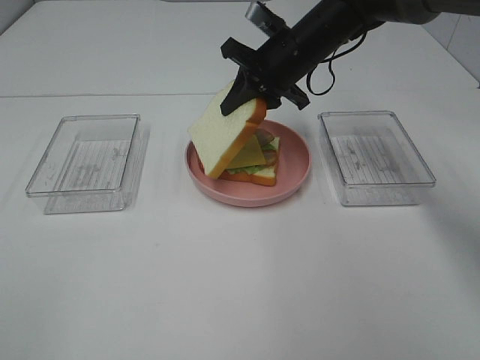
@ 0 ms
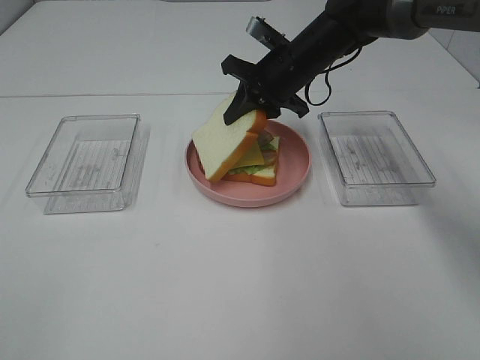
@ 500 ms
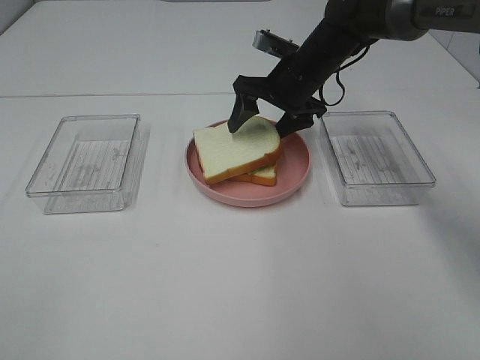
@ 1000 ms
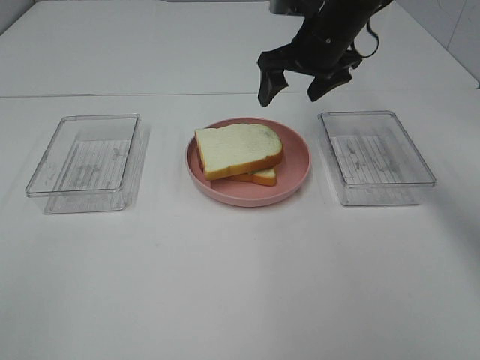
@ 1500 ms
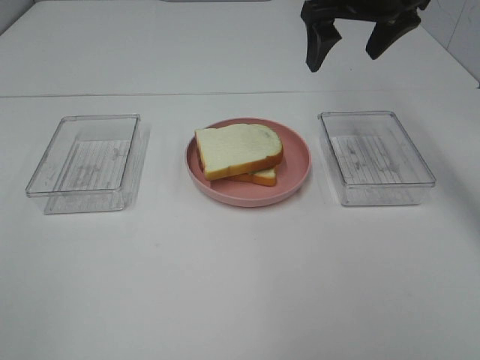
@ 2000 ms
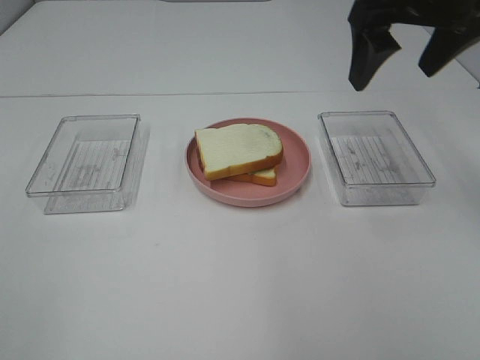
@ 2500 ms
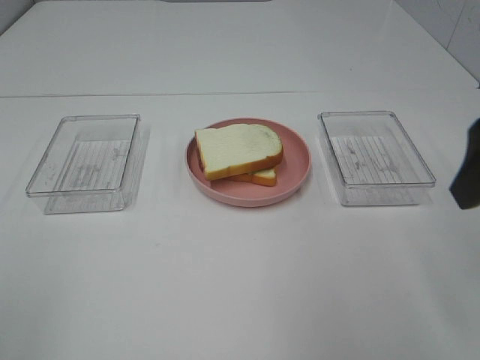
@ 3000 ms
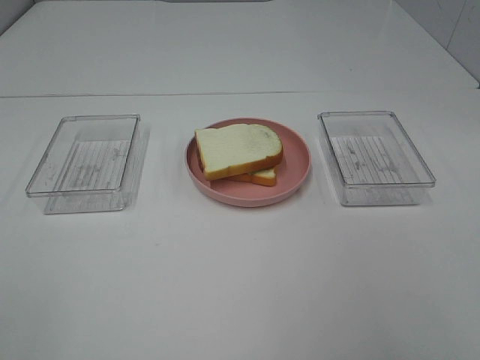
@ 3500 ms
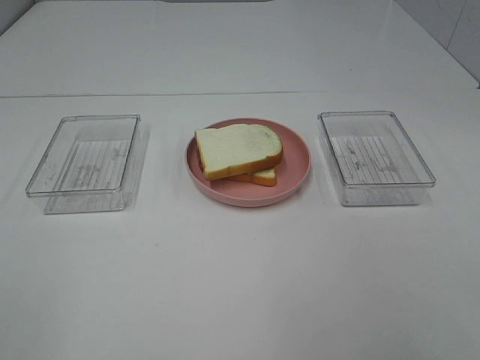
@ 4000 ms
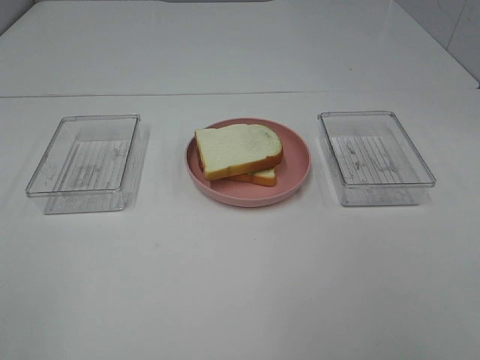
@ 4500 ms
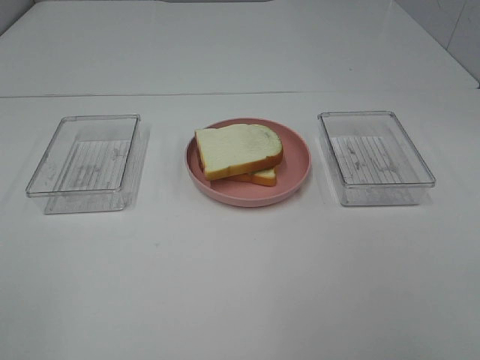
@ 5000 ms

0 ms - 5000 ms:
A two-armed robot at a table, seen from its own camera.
Task of the whole recording: Make sandwiches.
0 ms - 2500 ms: The right gripper is displaced upward, backward and to the right by some 20 cm, and opens.
2500 ms - 5000 ms: The right gripper shifts about 35 cm backward.

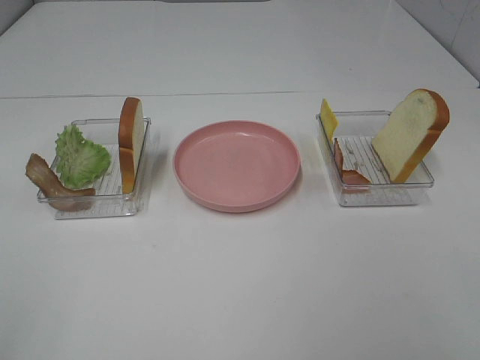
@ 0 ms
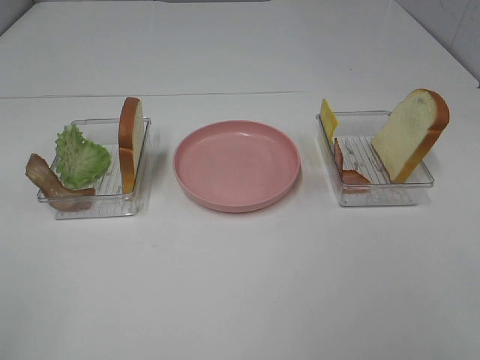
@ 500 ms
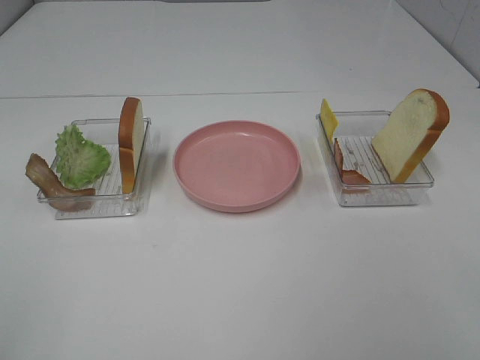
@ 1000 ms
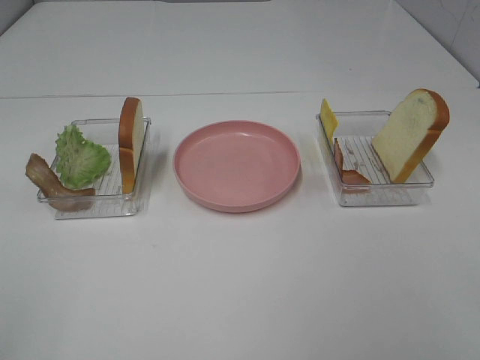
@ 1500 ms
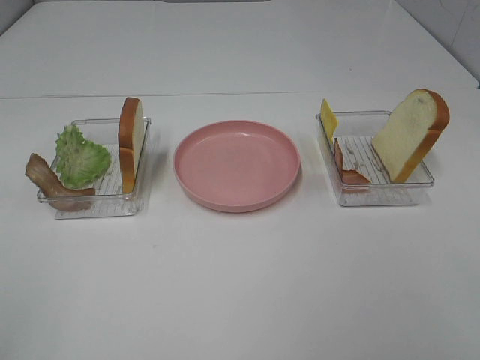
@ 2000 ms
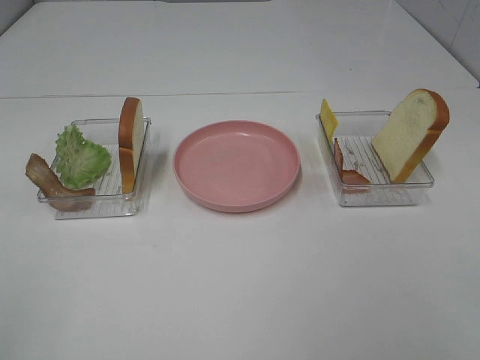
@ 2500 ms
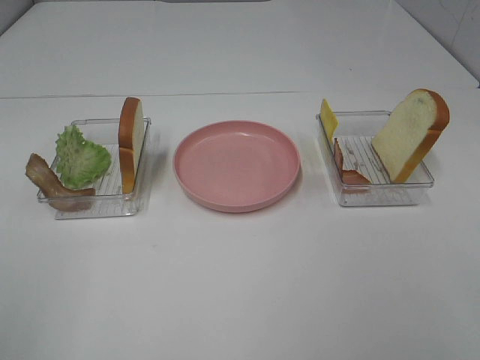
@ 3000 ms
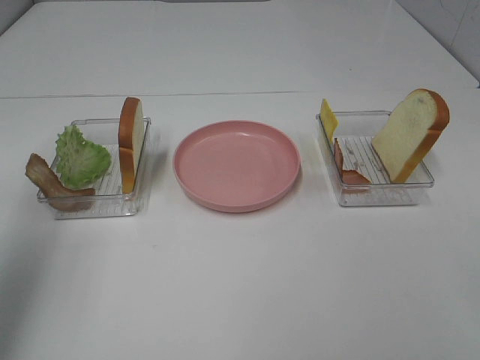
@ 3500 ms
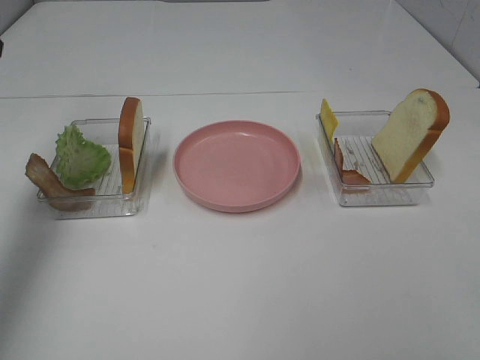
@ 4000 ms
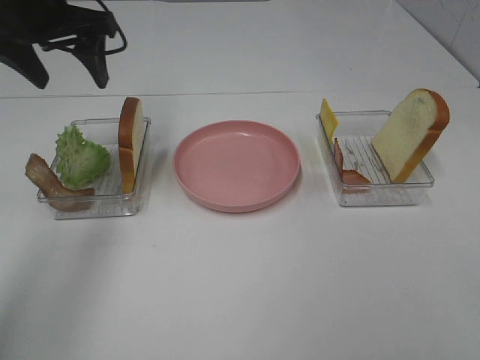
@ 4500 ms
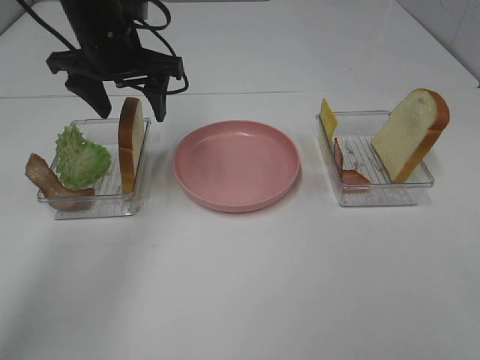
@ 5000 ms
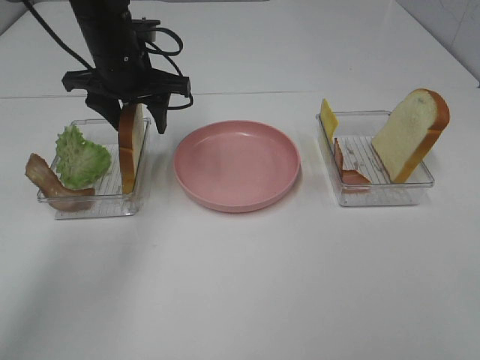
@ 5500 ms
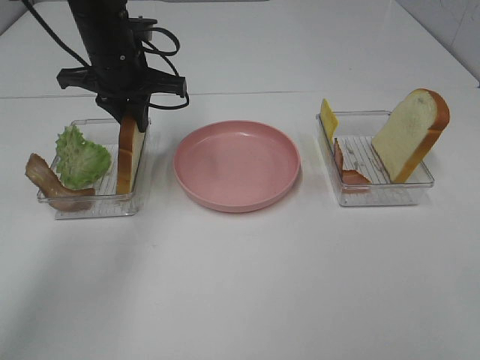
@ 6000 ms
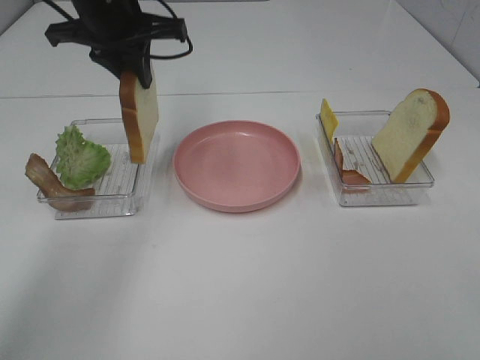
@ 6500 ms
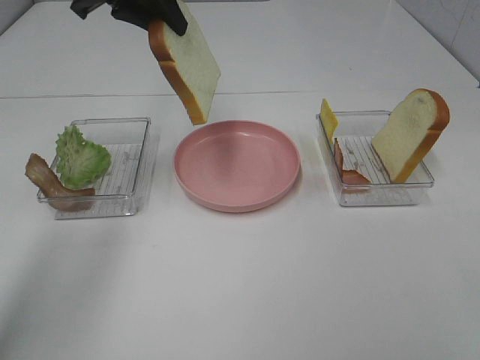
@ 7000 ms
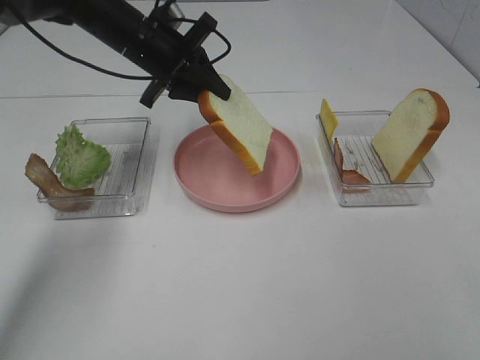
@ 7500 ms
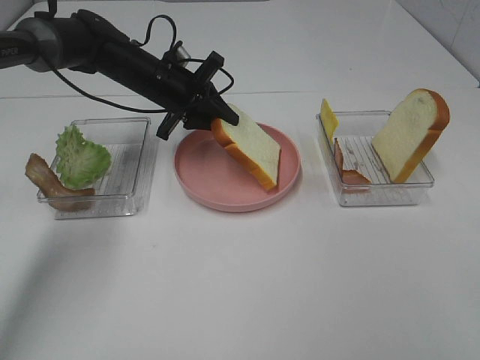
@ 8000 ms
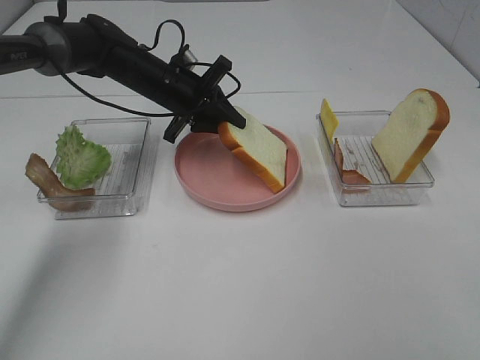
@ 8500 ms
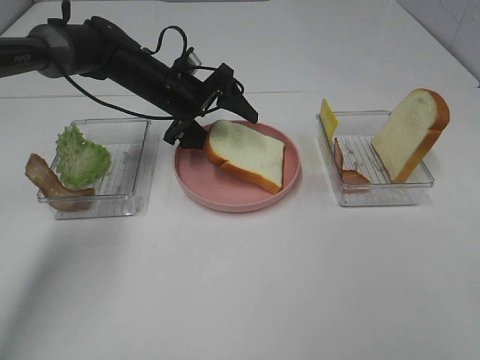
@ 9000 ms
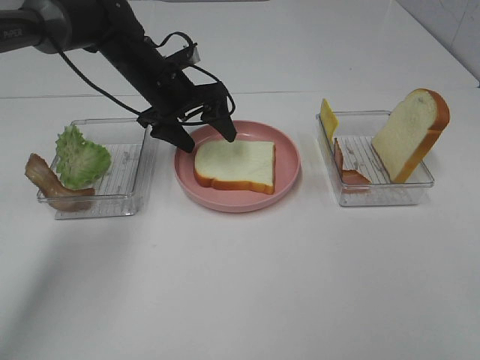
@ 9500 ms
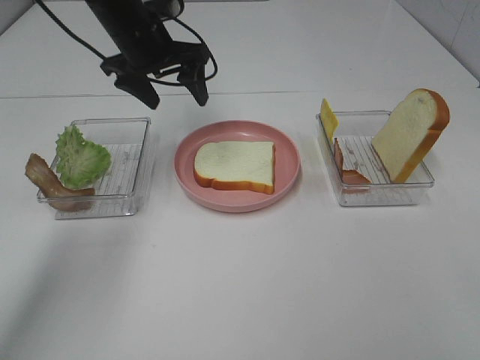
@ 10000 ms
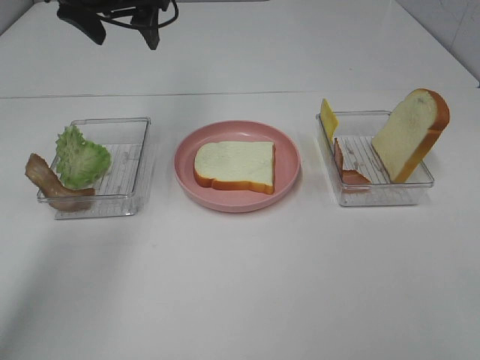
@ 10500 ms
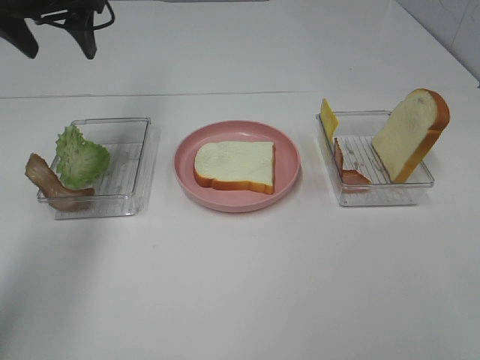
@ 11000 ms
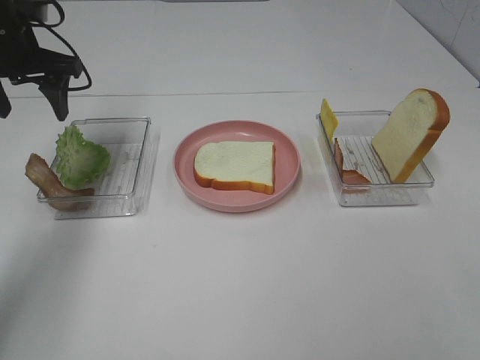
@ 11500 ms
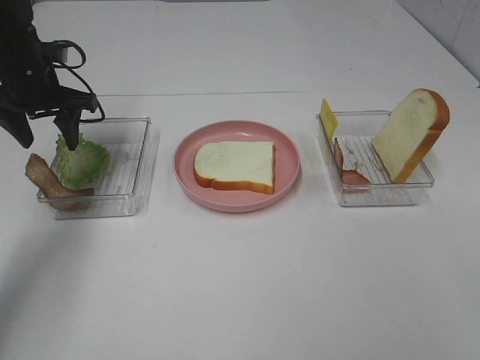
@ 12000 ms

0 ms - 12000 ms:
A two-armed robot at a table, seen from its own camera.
Task of the whole recording: Make sandwiches.
Step, 0 ms - 6000 ms: Left hand:grab the bread slice.
Step, 6500 ms - 9500 ms: Left hand:place the bread slice on the plate.
0 ms - 2000 ms: The two grippers keep their place.
2000 ms - 4000 ms: The left gripper goes about 35 cm forward.
4000 ms - 6000 ms: The left gripper shifts roughly 25 cm to the right, downward and forward, and closes.
6000 ms - 8000 ms: The left gripper is displaced downward by approximately 5 cm.
8000 ms - 10000 ms: The left gripper shifts about 10 cm upward, and opens.
10000 ms - 12000 ms: The left gripper heads to the left, covering approximately 15 cm.

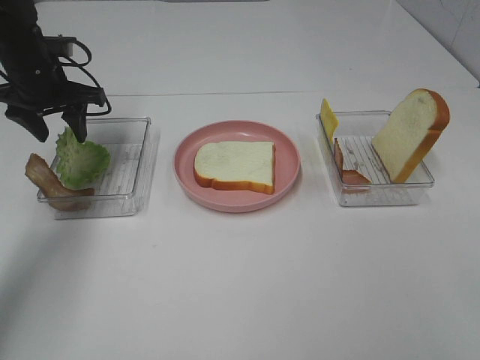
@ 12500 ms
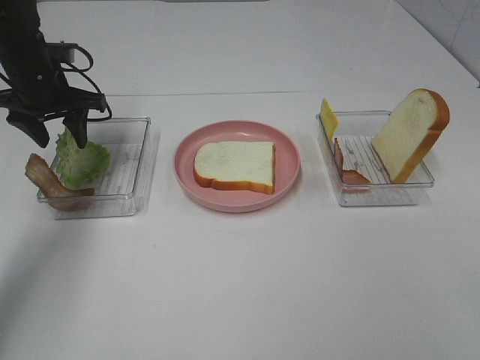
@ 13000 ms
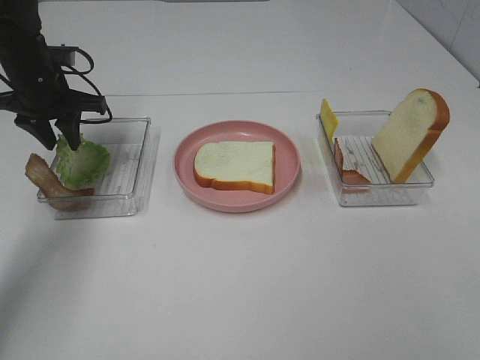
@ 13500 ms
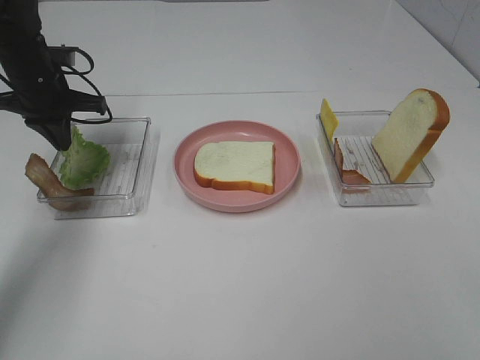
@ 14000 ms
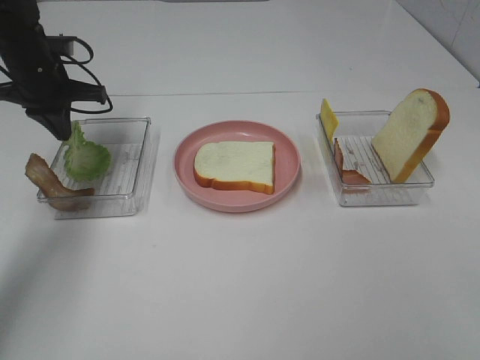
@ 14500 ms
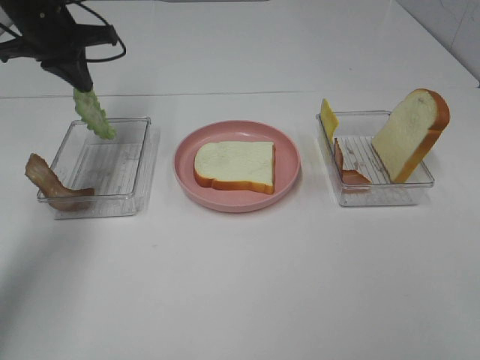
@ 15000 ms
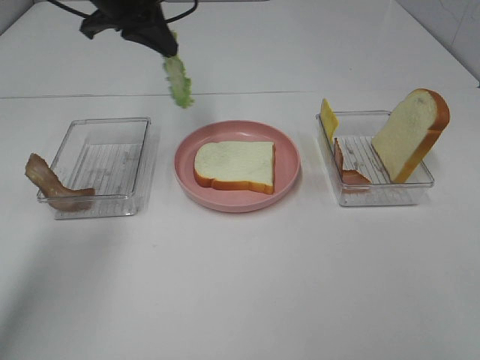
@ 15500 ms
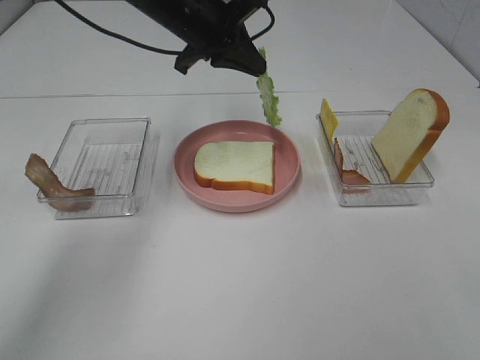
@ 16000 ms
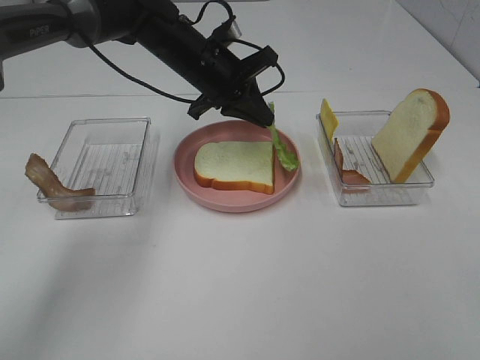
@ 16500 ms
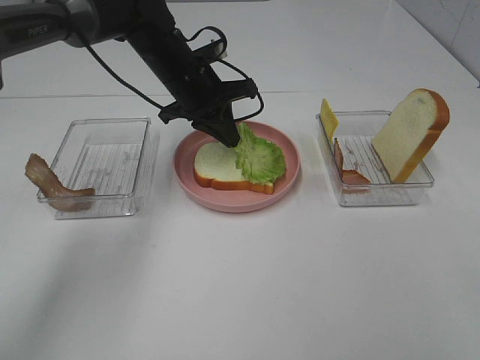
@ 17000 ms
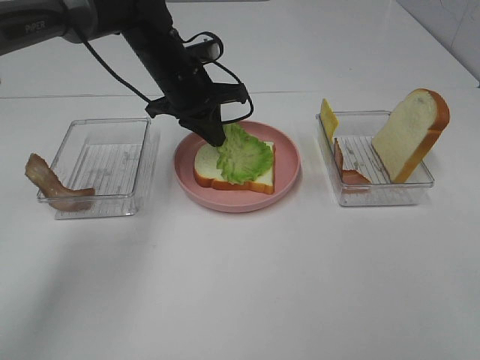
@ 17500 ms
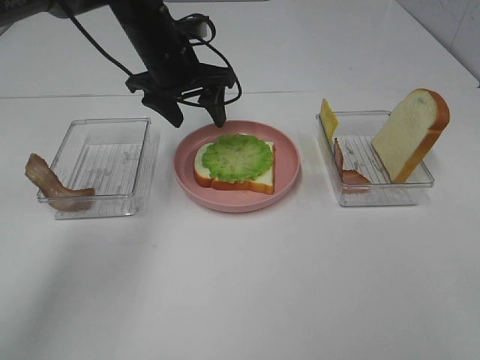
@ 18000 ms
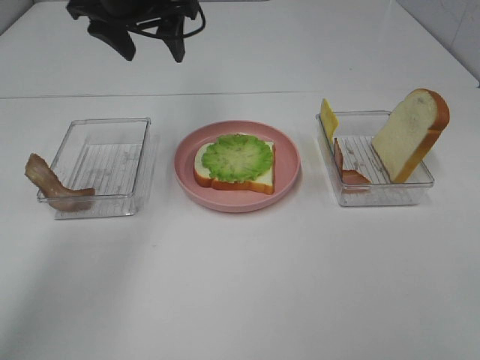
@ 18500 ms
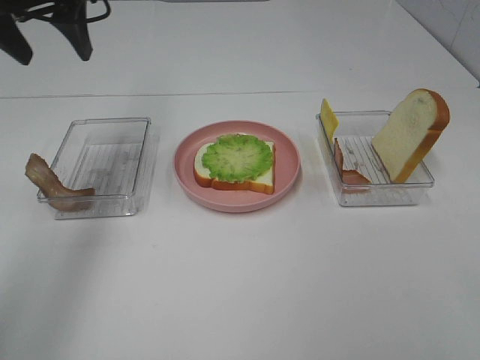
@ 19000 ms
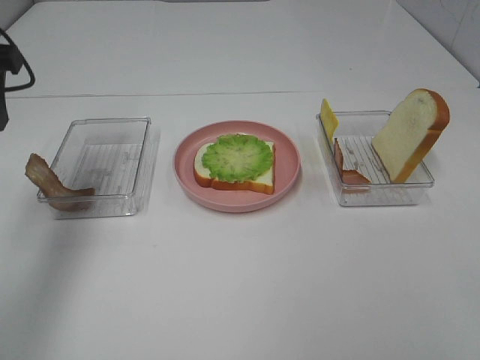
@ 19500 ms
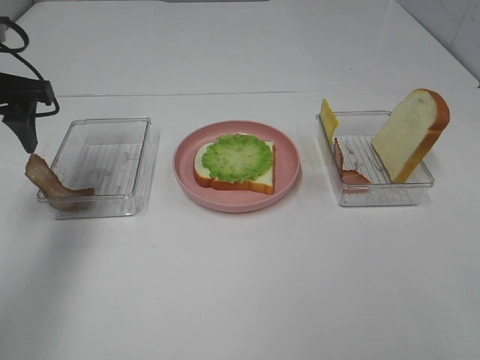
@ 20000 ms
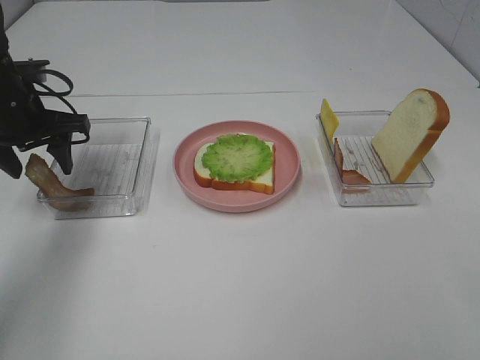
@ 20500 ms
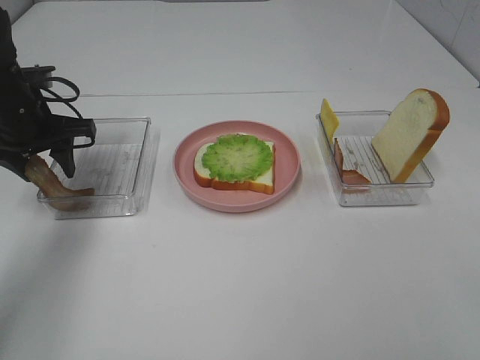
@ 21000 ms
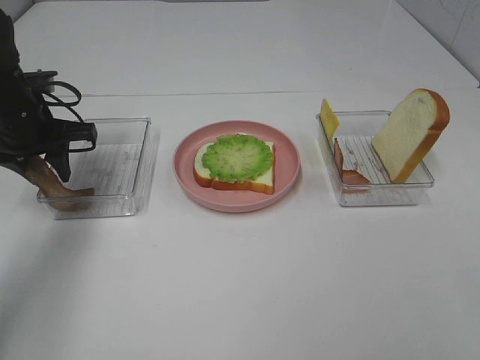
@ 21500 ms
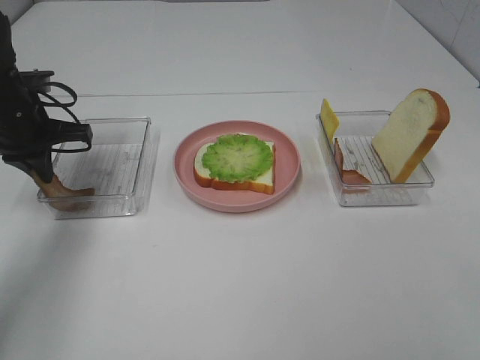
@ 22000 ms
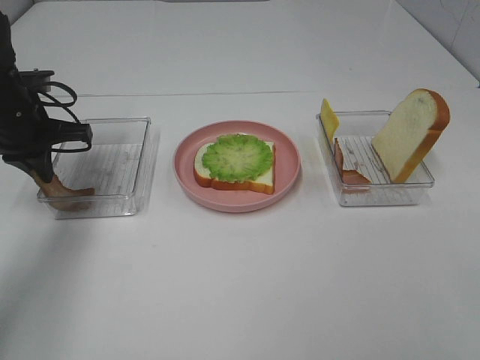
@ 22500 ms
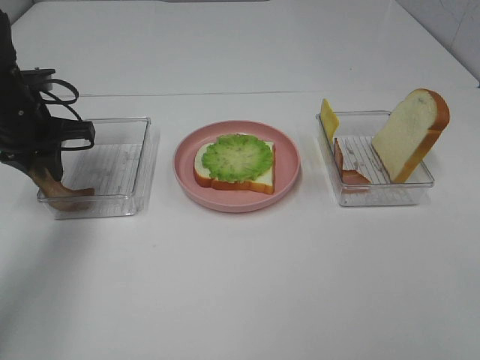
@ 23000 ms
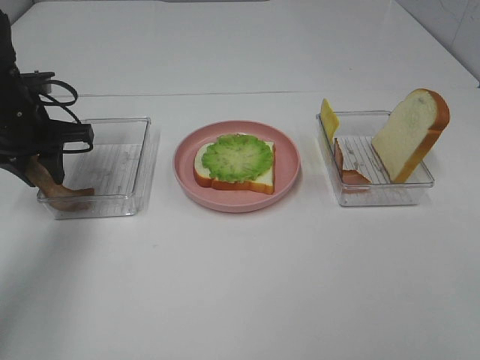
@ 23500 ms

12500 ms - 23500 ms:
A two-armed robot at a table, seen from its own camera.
Task of the whole recording: Make sandwiches.
Step, 12500 ms - 14500 ms: Left hand:grab the lettuce slice.
Step, 15000 ms - 17500 ms: Left hand:place the lettuce slice on the bread slice.
12500 ms - 14500 ms: The left gripper closes up.
14500 ms - 16000 ms: The left gripper travels to the right by some 20 cm.
16000 ms - 18000 ms: The left gripper opens up.
18000 ms - 20000 ms: The left gripper goes about 20 cm to the left and backward.
20000 ms - 21500 ms: The left gripper shifts roughly 10 cm downward, and closes its fingers.
21500 ms - 23500 ms: The left gripper closes, then opens again.
